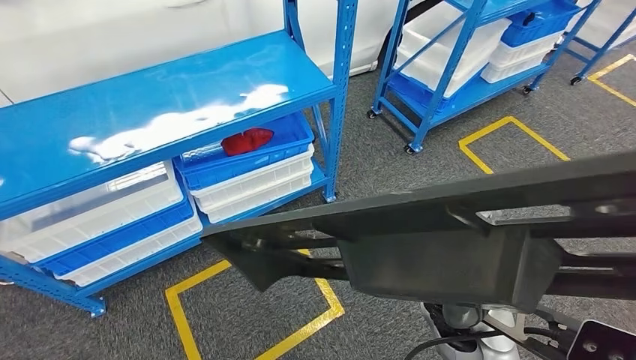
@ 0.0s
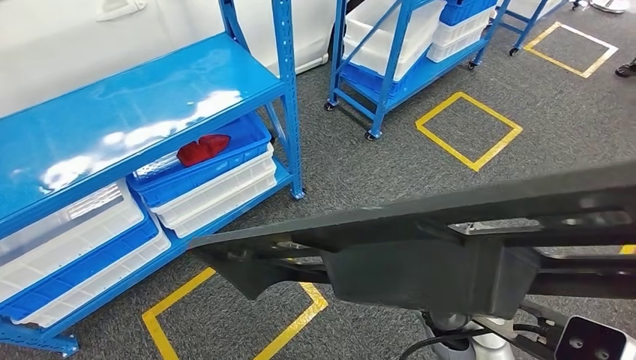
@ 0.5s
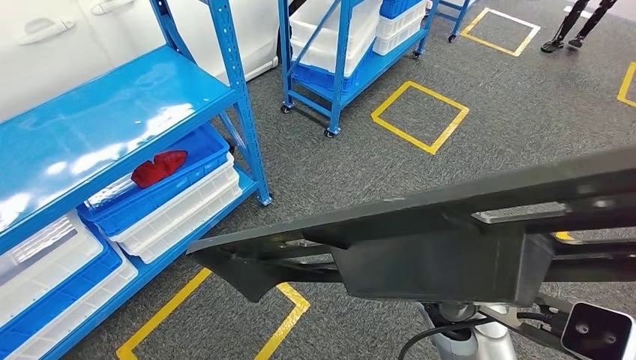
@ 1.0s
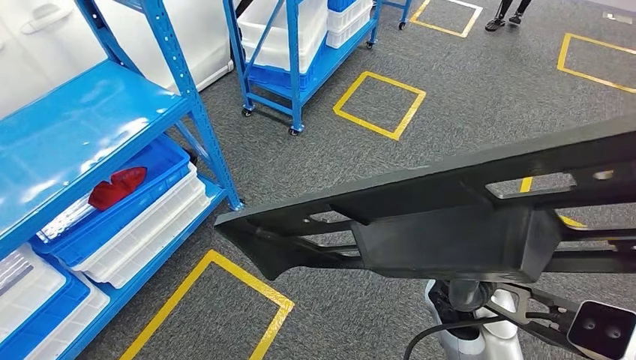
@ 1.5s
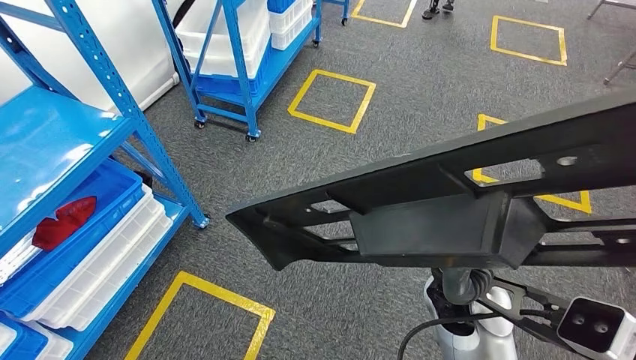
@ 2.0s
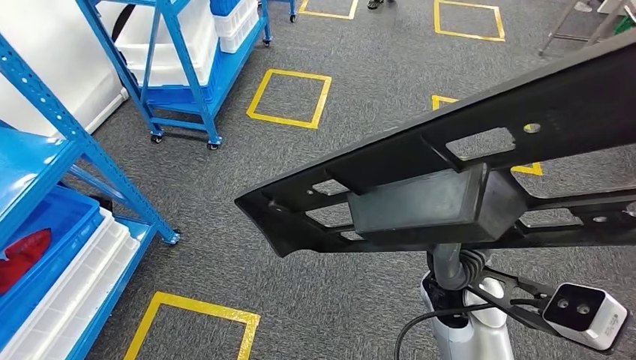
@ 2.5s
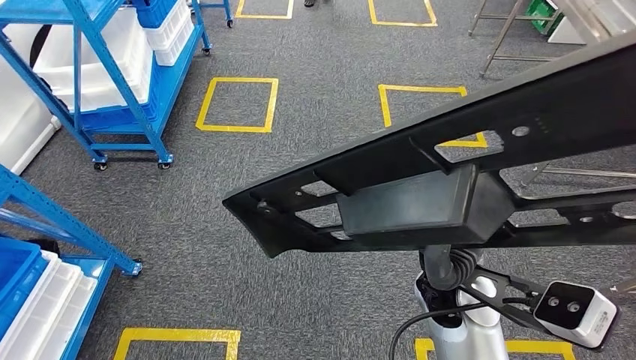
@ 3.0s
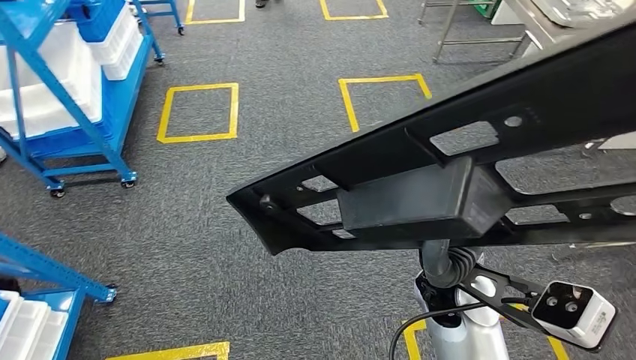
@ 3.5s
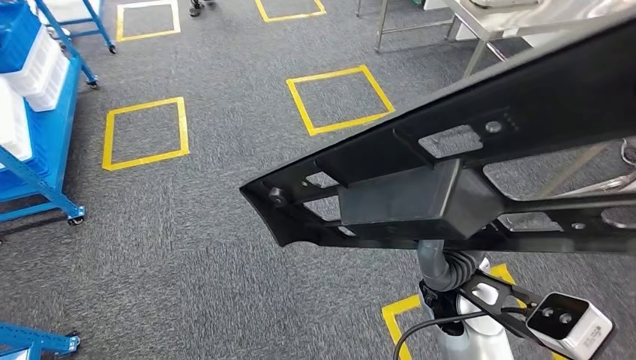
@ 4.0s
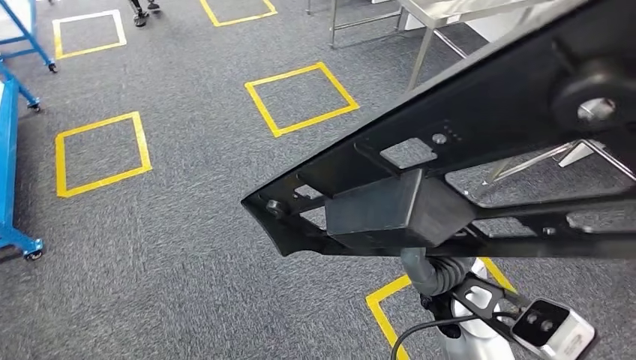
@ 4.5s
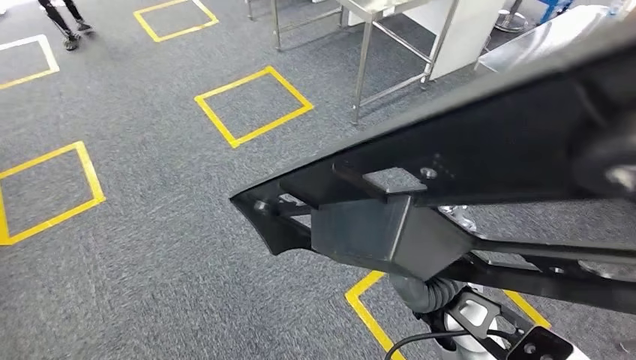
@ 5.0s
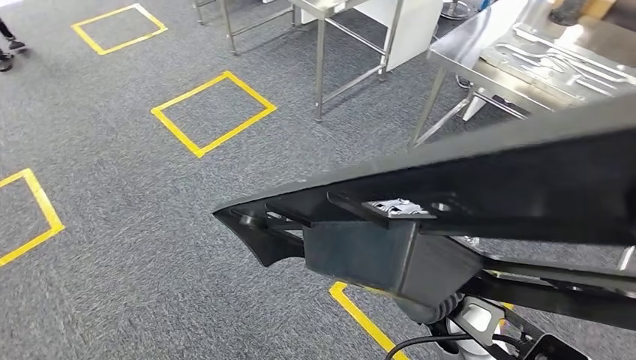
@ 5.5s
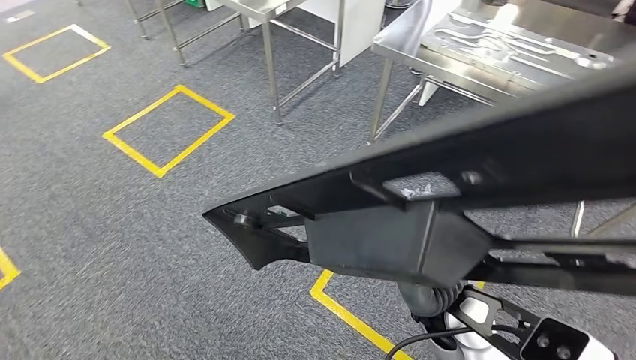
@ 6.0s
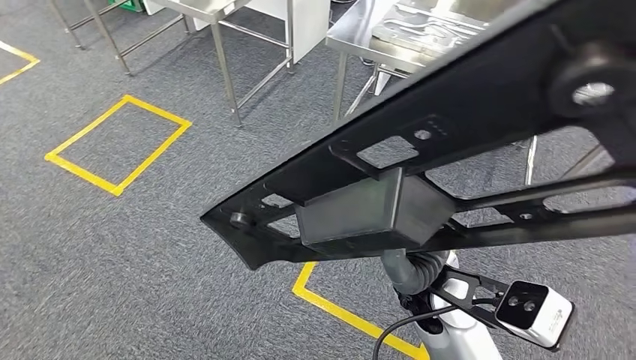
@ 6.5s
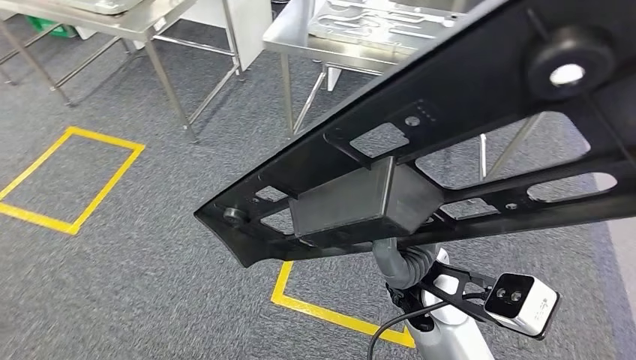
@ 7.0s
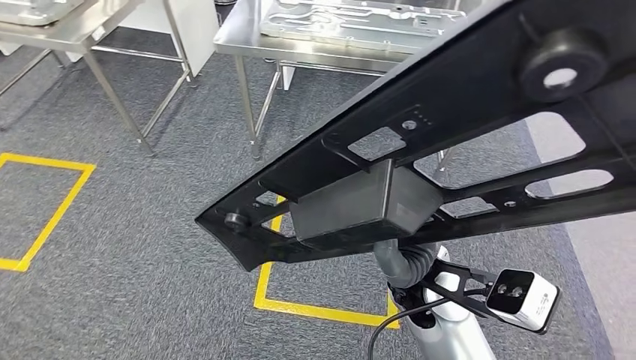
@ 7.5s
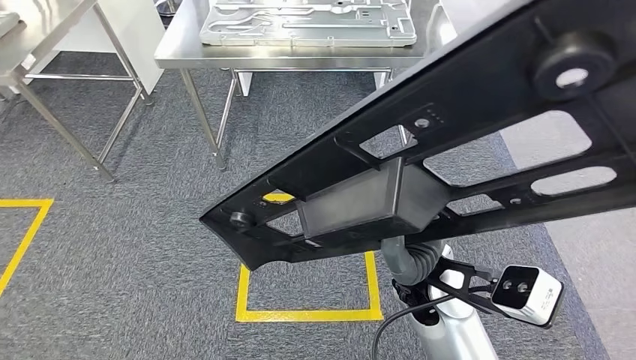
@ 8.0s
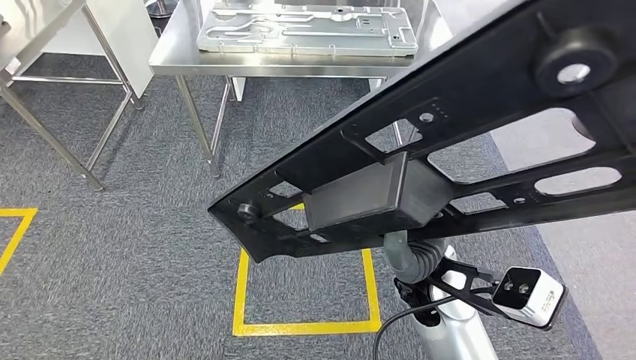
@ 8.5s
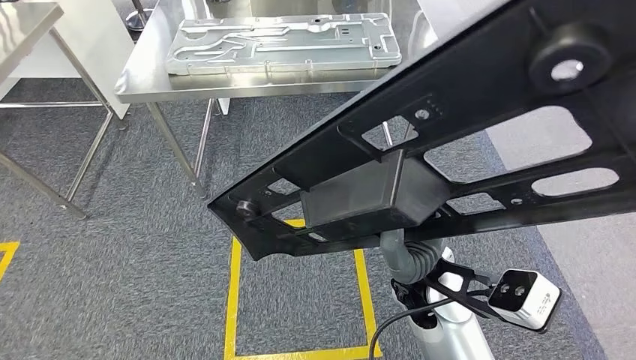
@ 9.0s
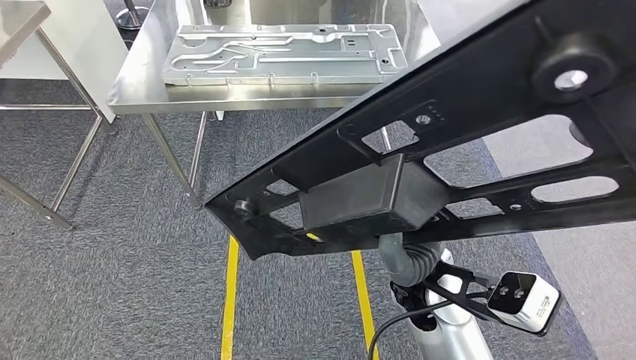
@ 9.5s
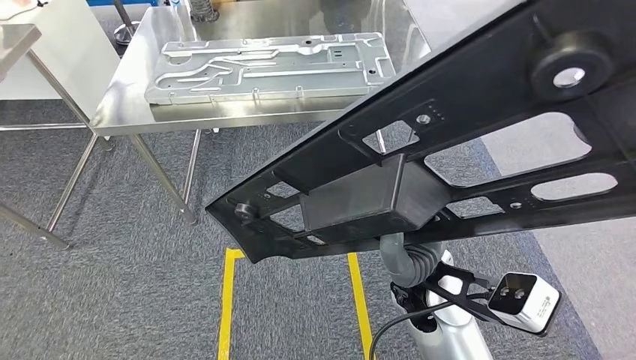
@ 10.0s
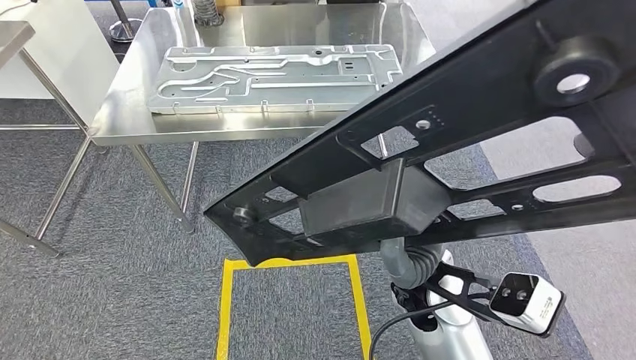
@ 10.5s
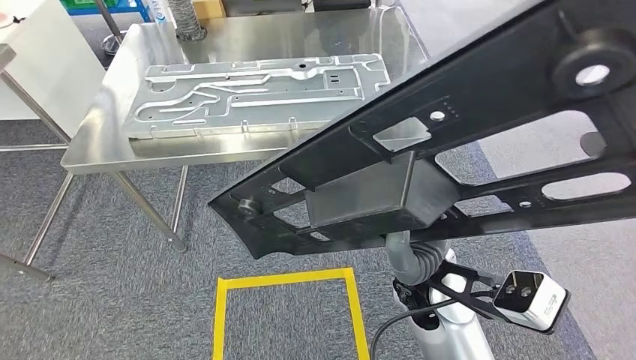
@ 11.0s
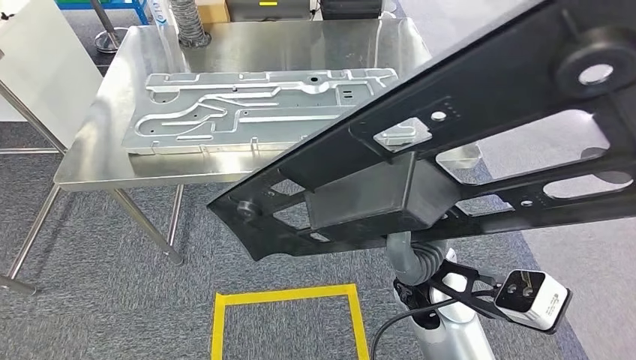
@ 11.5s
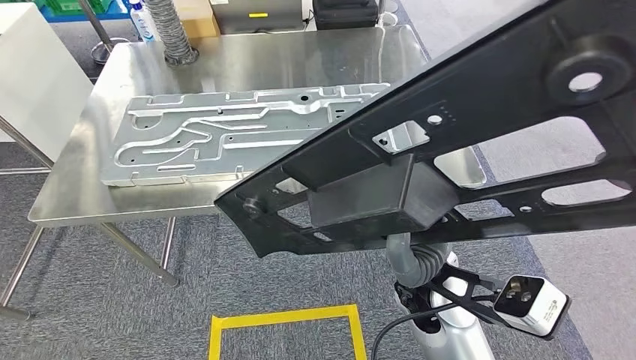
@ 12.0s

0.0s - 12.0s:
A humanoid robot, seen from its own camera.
Step, 0.0s - 10.5s: Move the large material to the workbench.

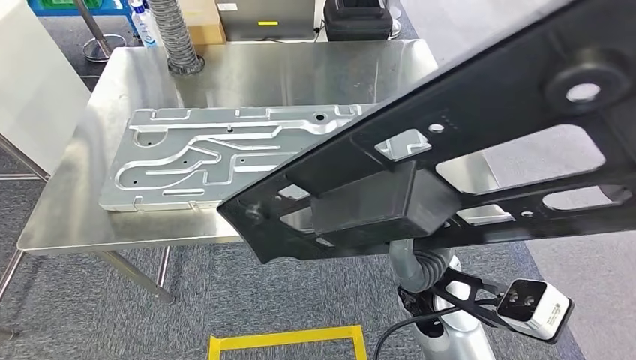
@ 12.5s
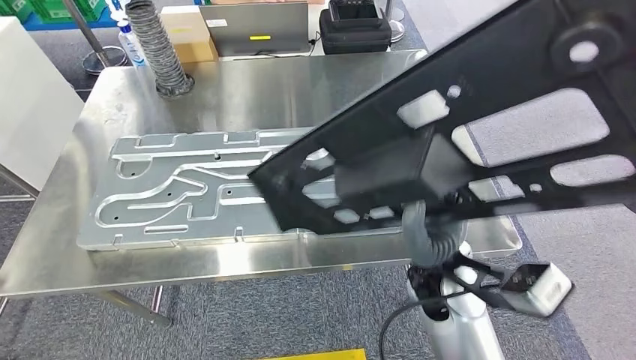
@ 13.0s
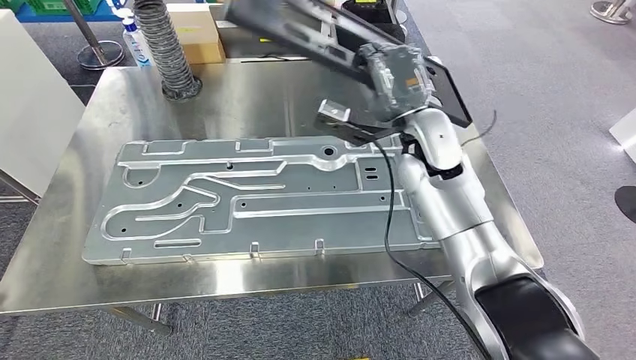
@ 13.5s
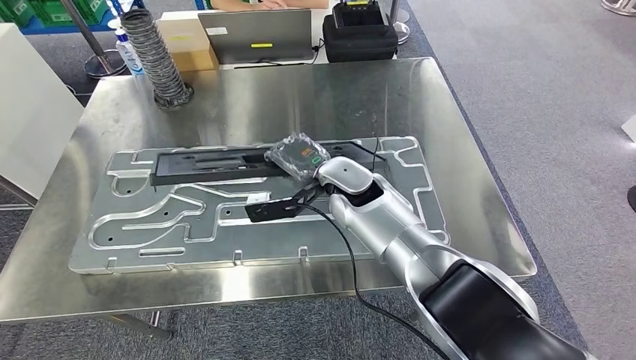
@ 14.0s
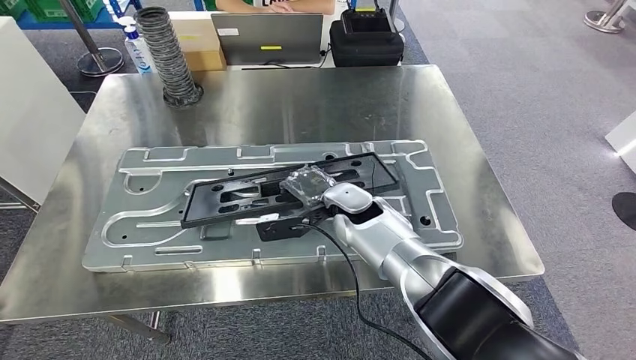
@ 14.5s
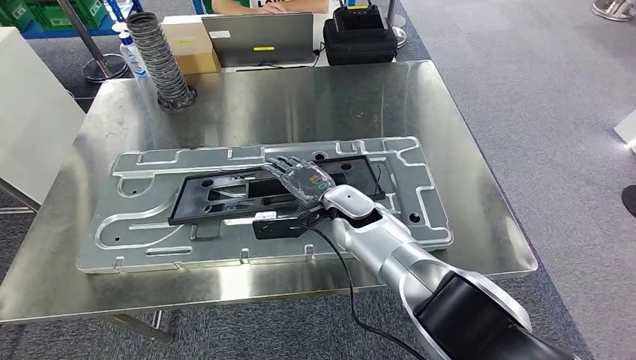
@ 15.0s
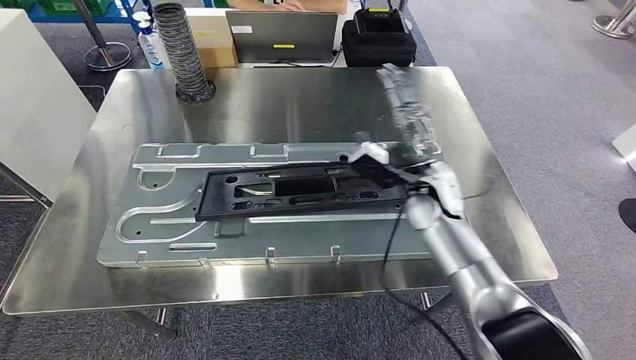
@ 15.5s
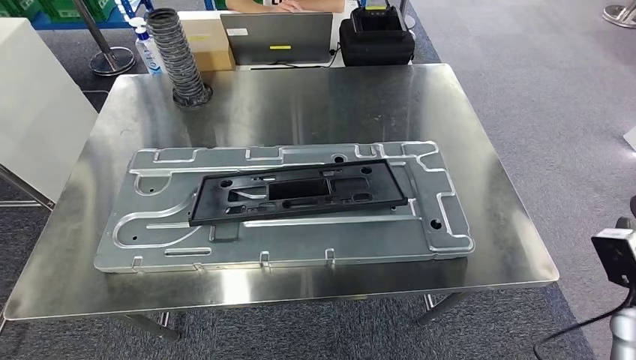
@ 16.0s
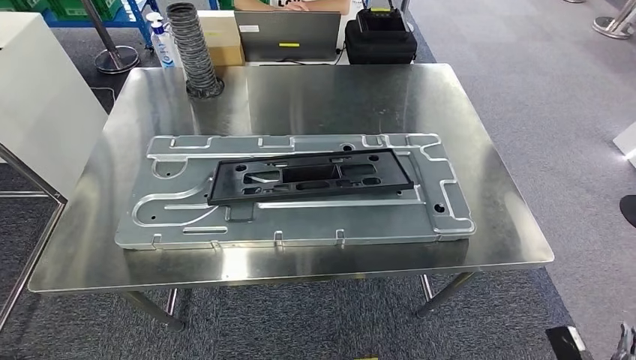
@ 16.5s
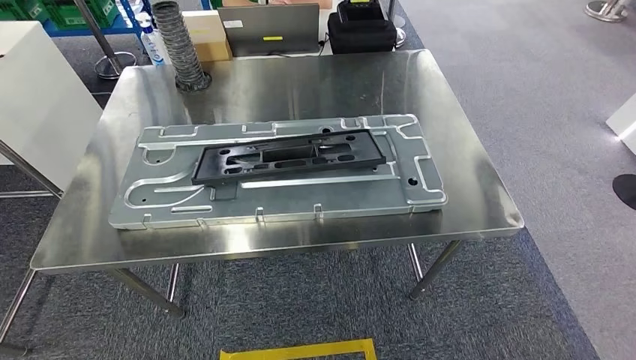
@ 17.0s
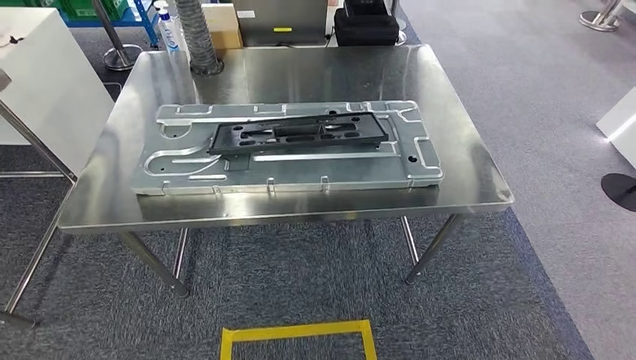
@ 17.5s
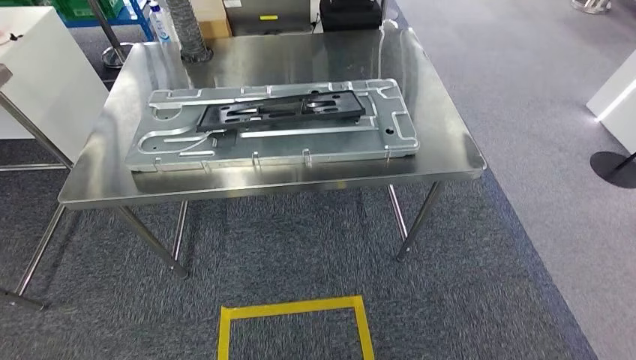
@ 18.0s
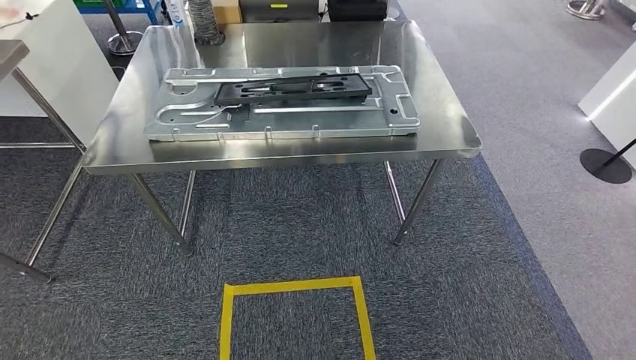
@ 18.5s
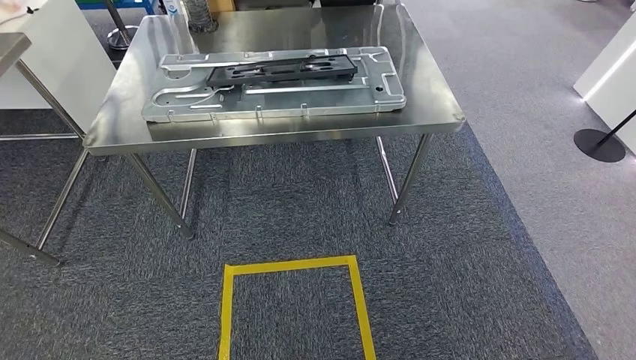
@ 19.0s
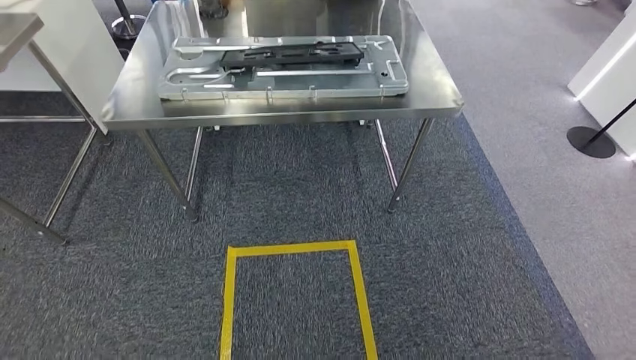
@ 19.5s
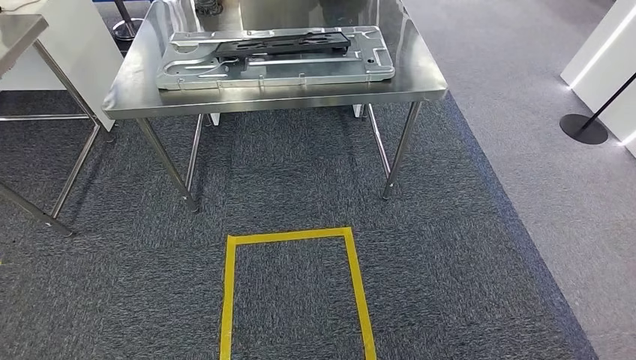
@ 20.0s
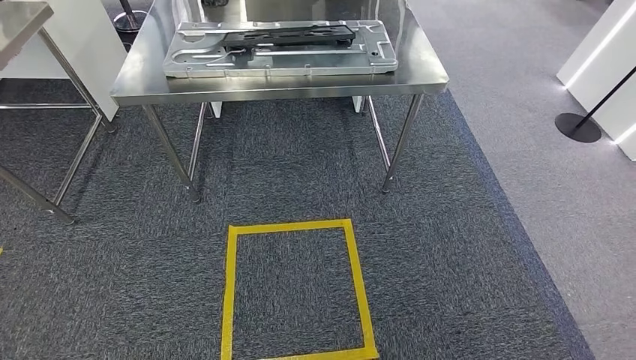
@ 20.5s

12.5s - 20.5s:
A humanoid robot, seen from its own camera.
Step, 12.5s - 15.0s: Insert the large material into the corresponding slot on the workbench.
Step, 17.0s - 20.5s: Move to the initial position of the shelf.
